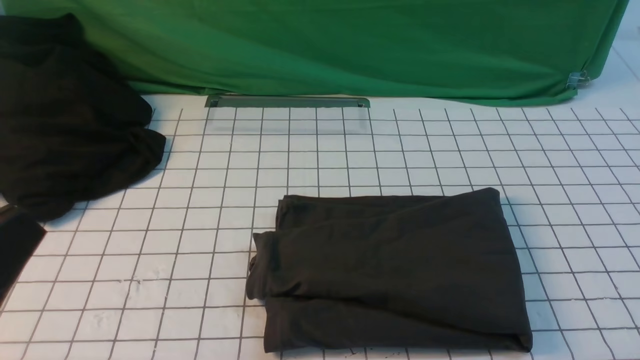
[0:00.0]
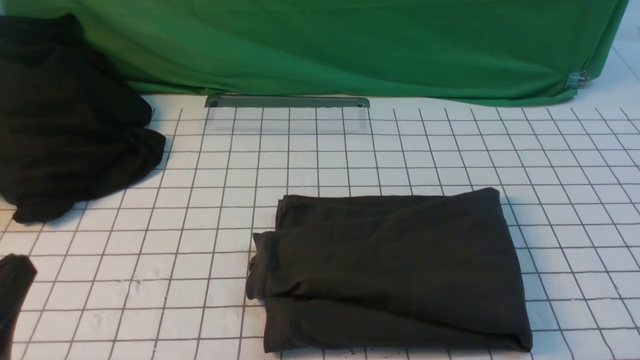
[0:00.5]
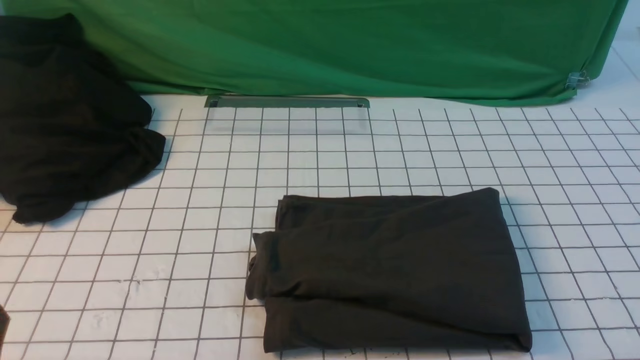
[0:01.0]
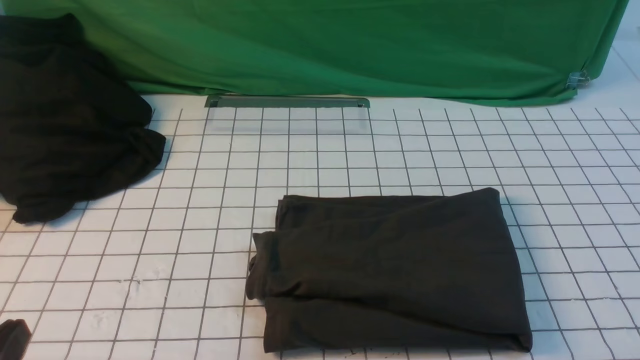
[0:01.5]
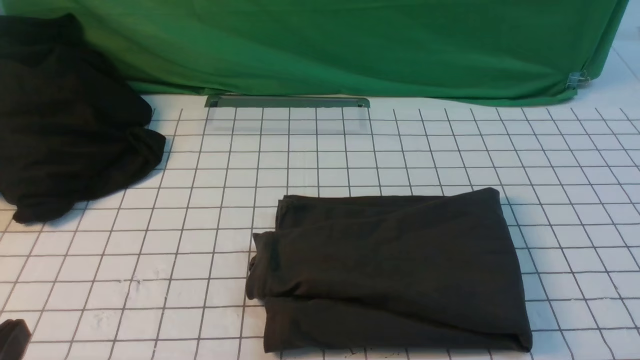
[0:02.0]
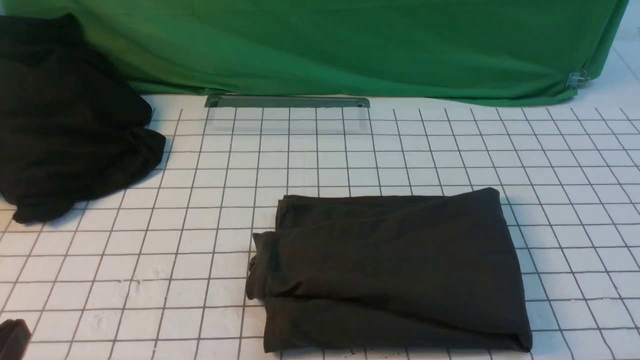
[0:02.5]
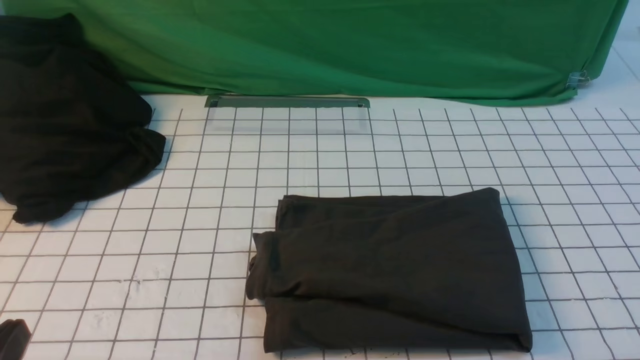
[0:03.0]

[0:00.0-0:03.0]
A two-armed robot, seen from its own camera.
0:00.0 to 0:01.5: The left gripper is displaced downward by roughly 10 cm.
0:01.5 to 0:03.0: Both grippers stay about where they are.
